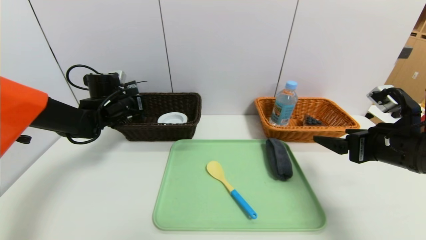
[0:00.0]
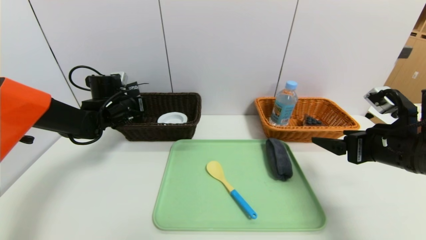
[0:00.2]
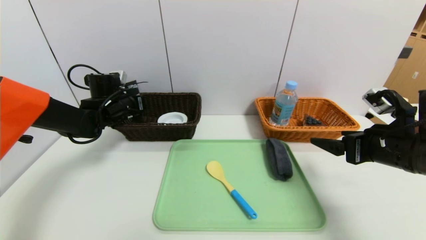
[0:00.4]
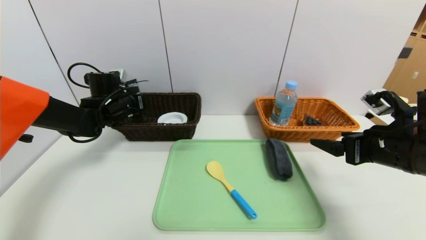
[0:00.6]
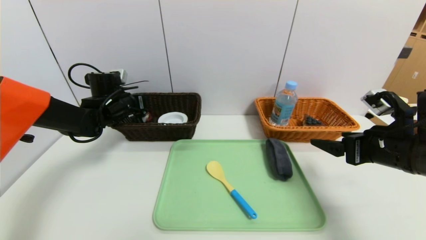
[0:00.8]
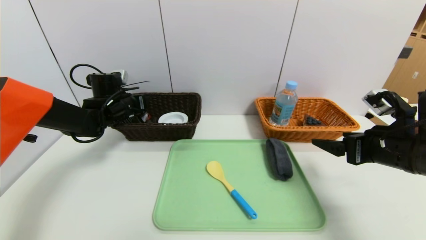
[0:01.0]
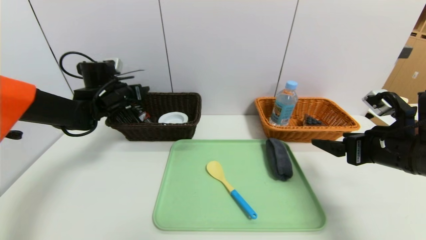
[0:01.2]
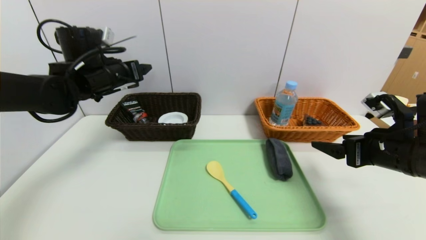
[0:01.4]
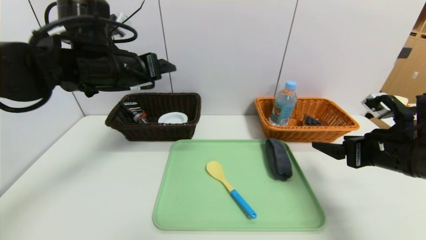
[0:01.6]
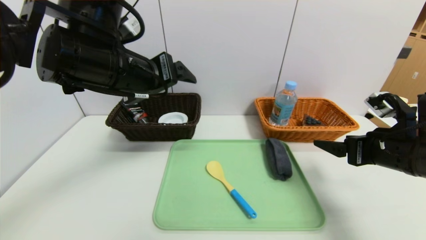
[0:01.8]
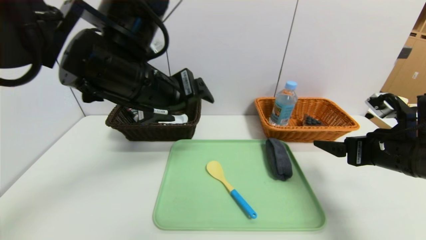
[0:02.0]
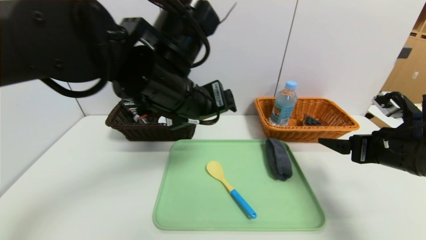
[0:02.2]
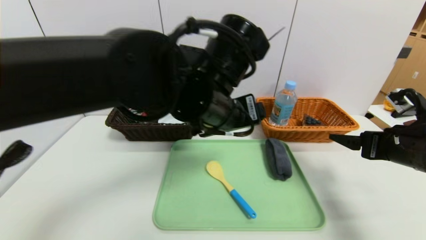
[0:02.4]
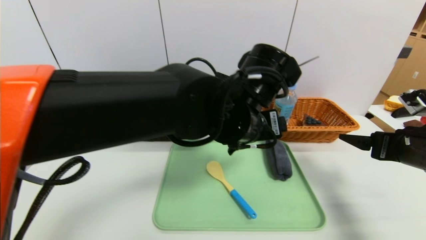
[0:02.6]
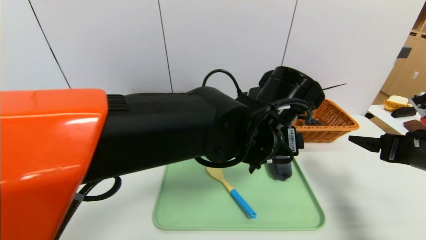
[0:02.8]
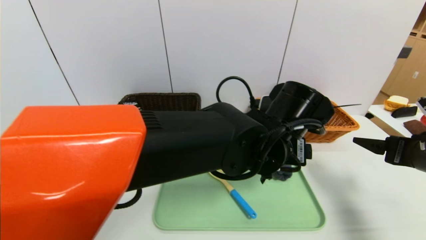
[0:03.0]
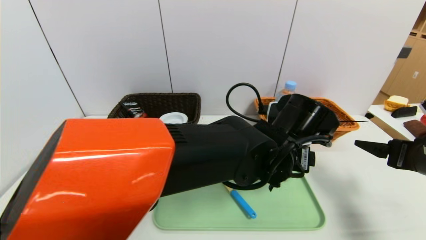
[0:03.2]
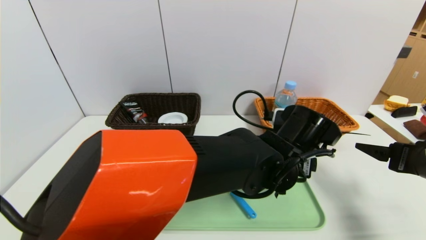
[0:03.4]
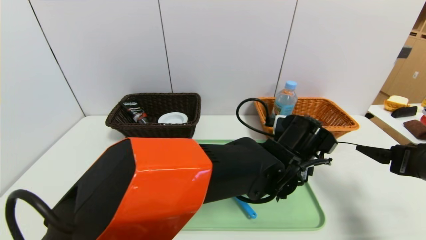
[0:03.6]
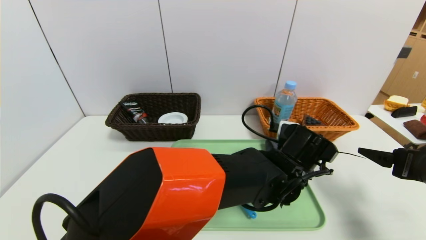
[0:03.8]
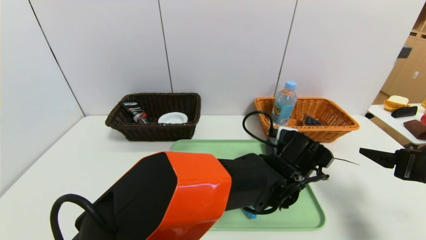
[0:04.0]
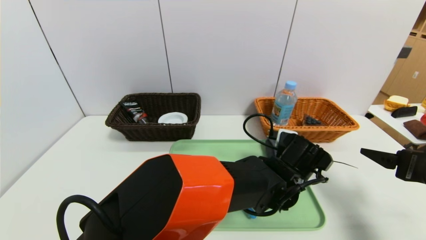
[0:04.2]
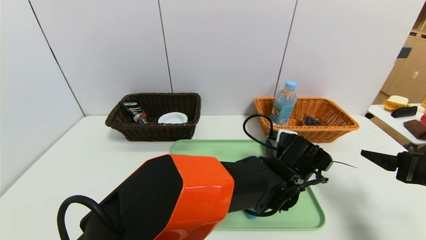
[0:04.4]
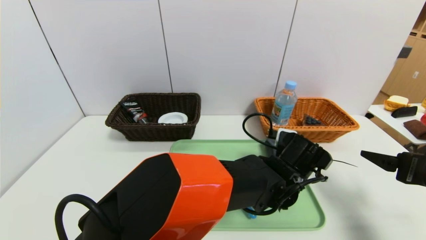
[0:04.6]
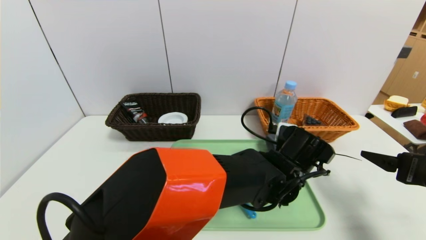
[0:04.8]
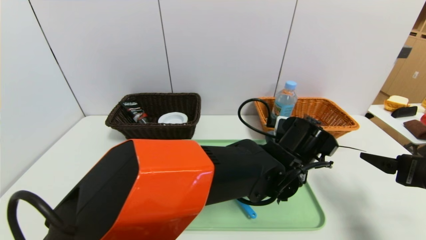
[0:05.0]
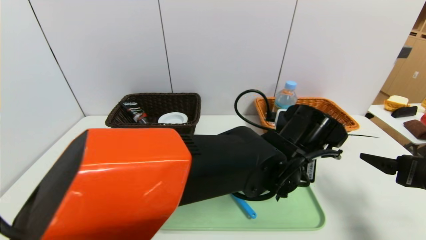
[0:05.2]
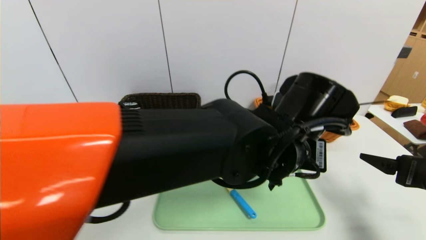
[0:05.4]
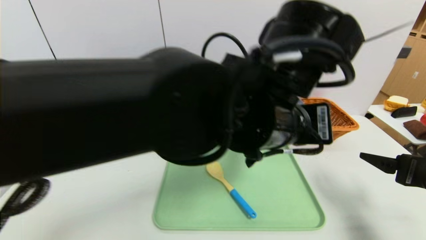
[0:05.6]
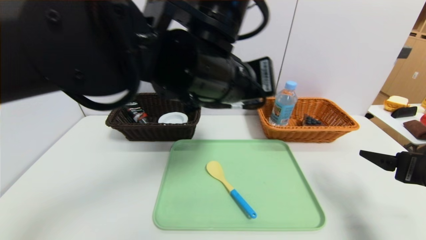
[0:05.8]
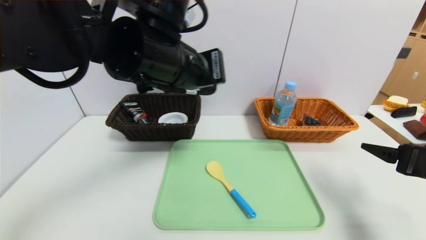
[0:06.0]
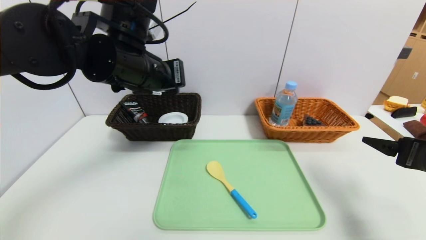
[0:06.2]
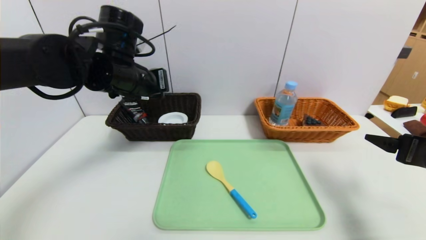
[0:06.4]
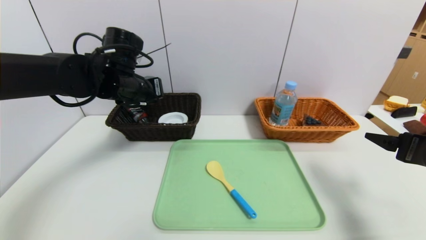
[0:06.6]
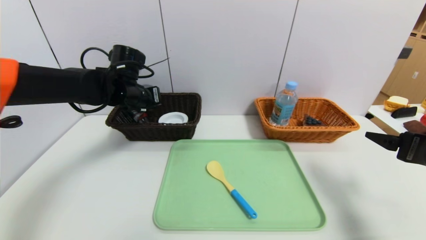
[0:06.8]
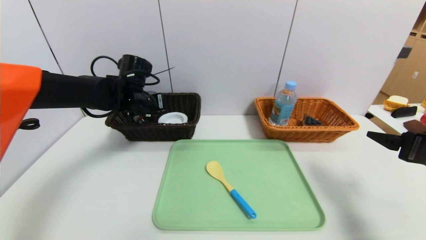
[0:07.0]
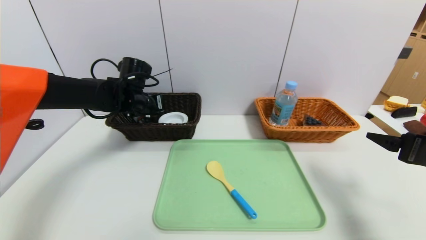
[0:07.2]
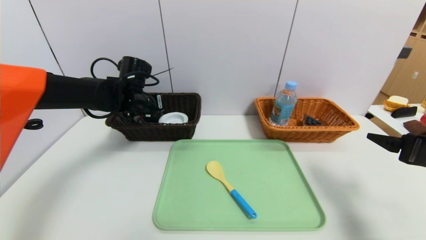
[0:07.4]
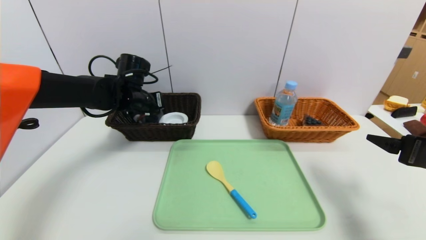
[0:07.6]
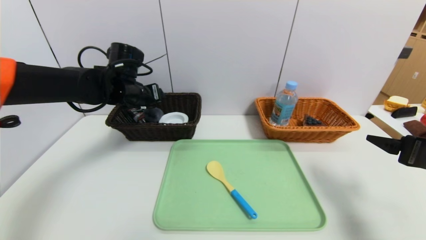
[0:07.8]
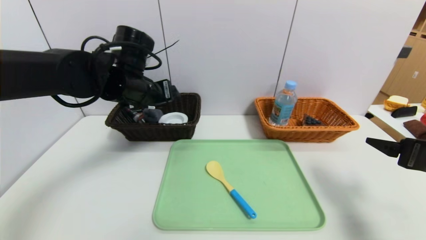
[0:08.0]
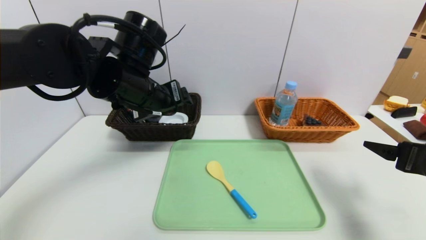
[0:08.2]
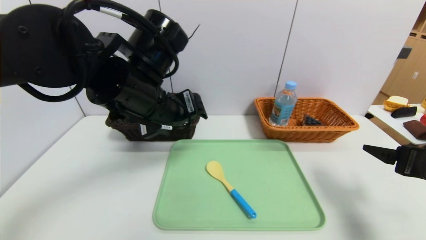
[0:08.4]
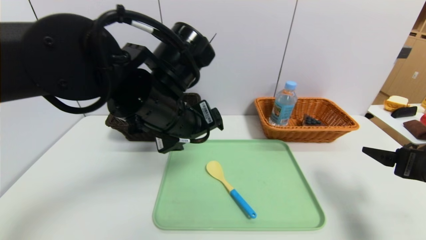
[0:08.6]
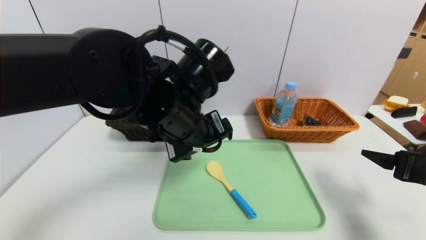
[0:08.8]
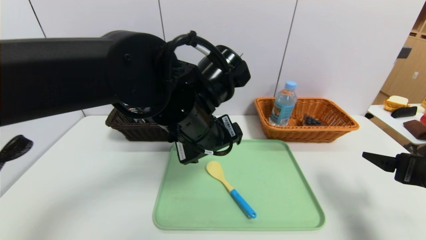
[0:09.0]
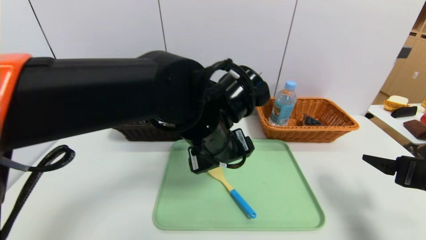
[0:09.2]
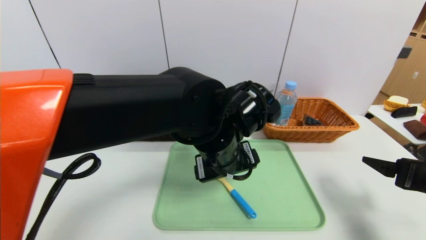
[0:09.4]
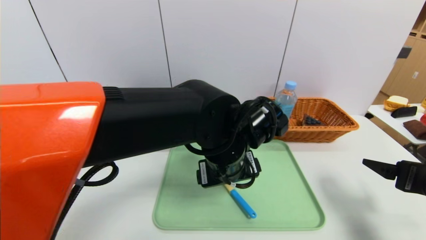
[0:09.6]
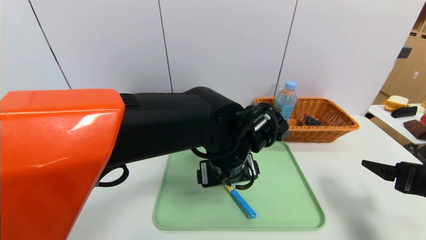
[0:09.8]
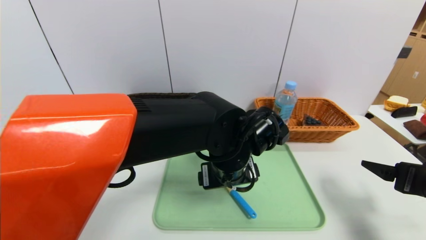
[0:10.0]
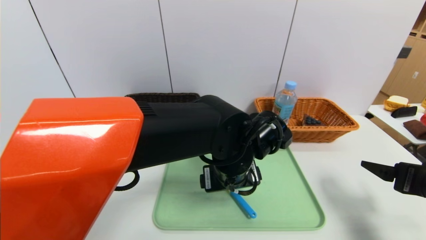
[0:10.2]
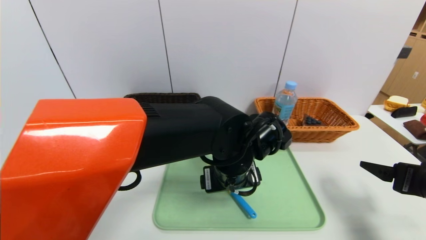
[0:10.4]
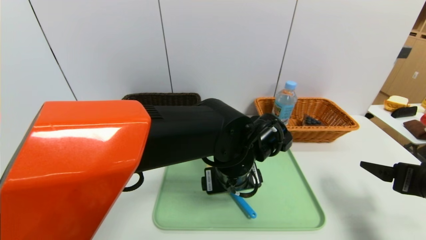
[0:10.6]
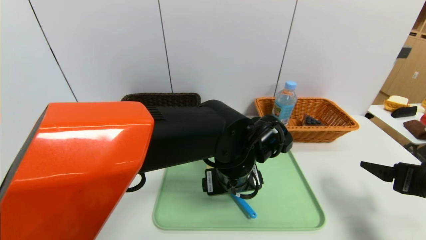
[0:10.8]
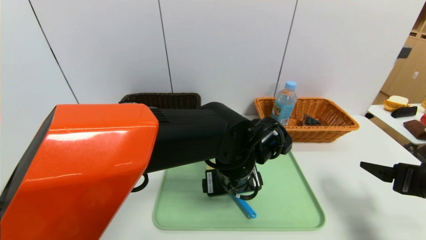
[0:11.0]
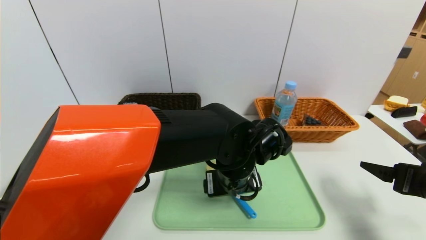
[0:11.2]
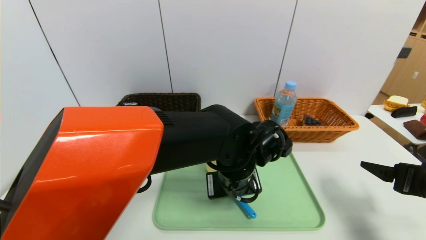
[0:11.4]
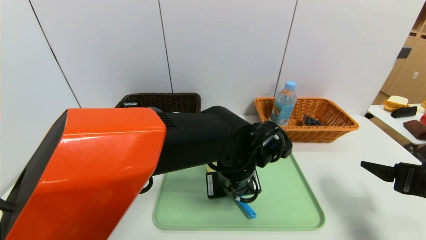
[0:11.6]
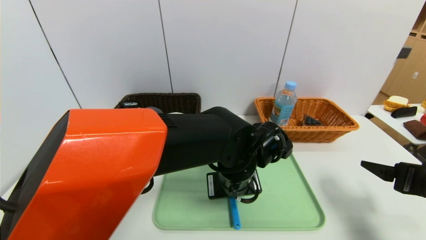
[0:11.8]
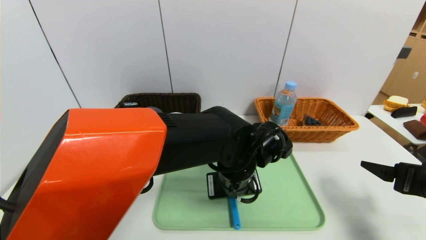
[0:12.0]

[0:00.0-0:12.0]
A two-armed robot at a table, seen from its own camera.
Task of the whole recording: place the food in the right basket with the right gripper, and place the non food items in the left basket with the left gripper.
Step, 0:01.6 to 0:08.2: Grasp the grey towel and put it in the left basket.
0:00.0 to 0:01.6: The left gripper moves upward, backward and to the right, roughly 20 cm, and opens its fingers.
0:01.6 to 0:03.0: The right gripper moves to the right, some 5 cm. The left gripper goes some 25 cm to the right.
0:03.0 to 0:04.4: The left gripper travels downward and to the right by approximately 10 cm, and closes its fingers.
0:04.4 to 0:06.0: The left gripper goes about 30 cm upward and to the left, and closes up.
0:06.0 to 0:07.6: The left gripper is displaced forward, downward and to the left by approximately 25 cm, and opens its fingers.
0:07.6 to 0:09.0: The left gripper heads backward and to the right, covering approximately 25 cm.
0:09.0 to 0:10.4: The left gripper is displaced downward and to the right by approximately 10 cm.
0:10.4 to 0:12.0: The left gripper closes its fingers.

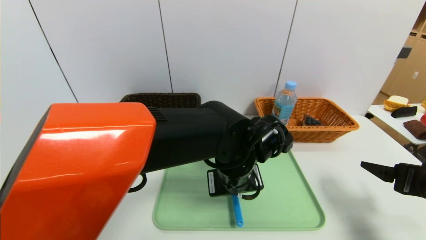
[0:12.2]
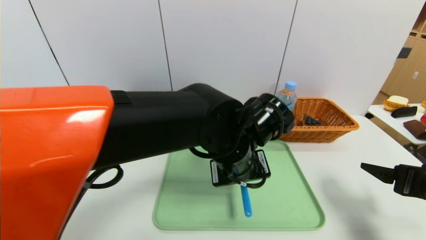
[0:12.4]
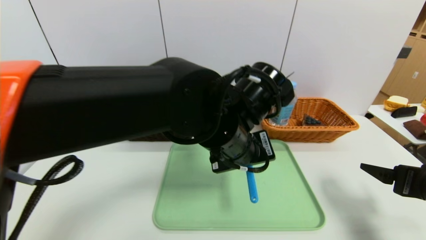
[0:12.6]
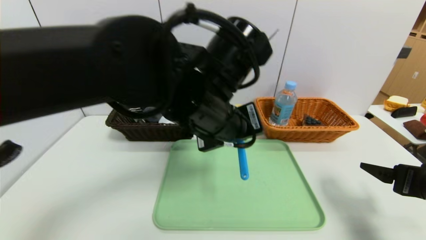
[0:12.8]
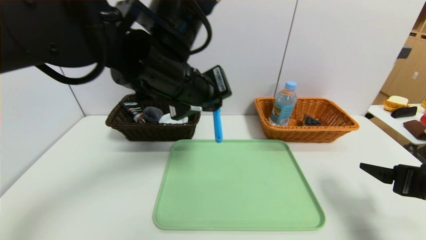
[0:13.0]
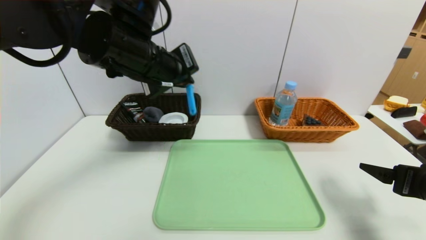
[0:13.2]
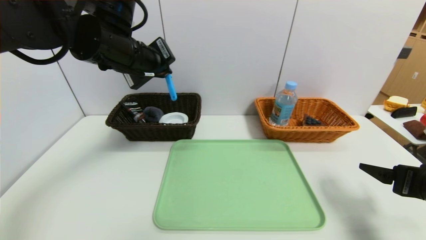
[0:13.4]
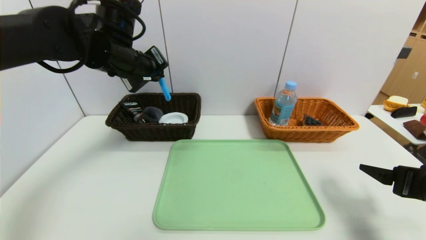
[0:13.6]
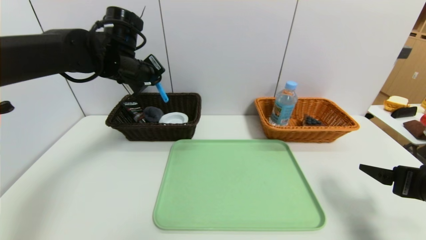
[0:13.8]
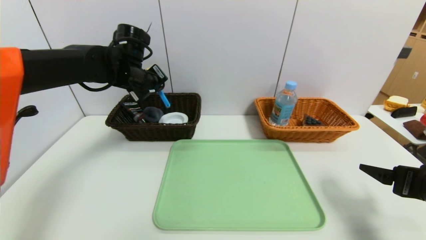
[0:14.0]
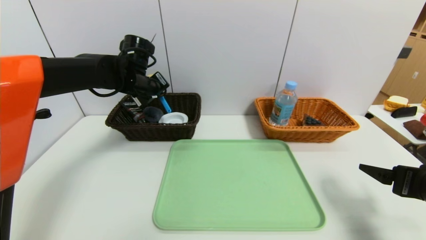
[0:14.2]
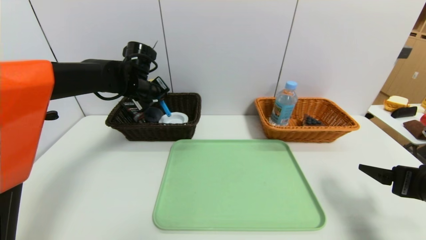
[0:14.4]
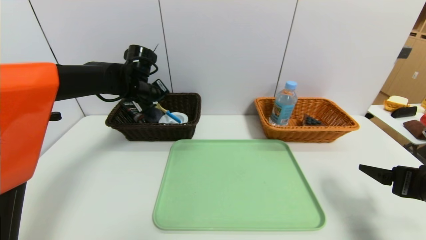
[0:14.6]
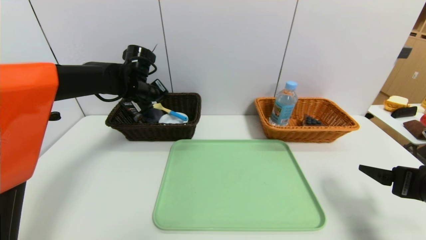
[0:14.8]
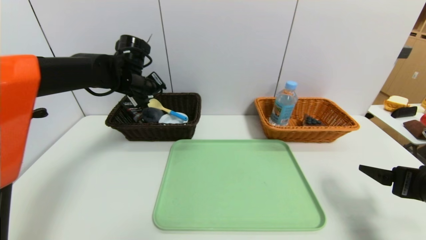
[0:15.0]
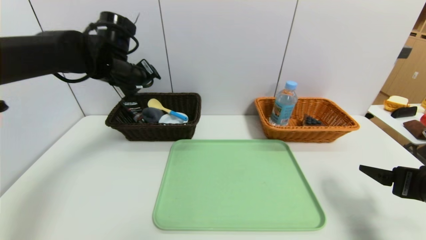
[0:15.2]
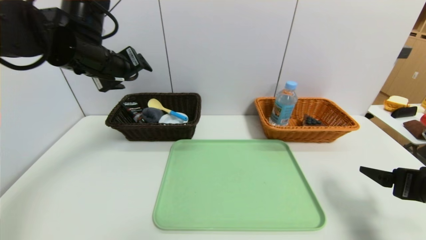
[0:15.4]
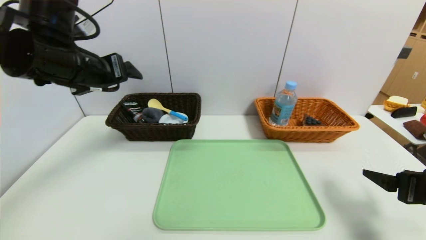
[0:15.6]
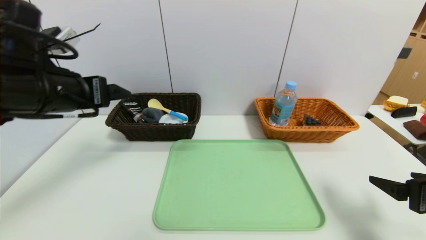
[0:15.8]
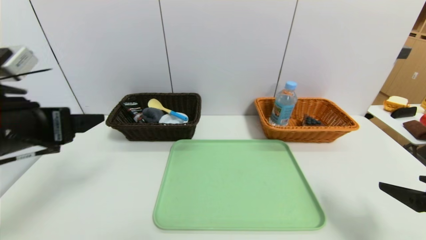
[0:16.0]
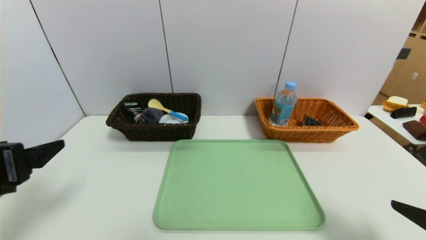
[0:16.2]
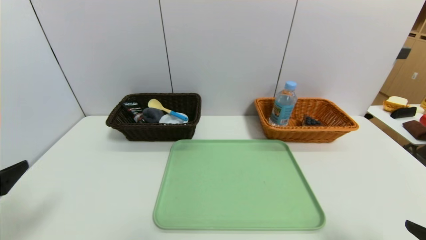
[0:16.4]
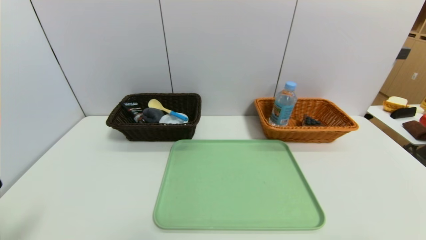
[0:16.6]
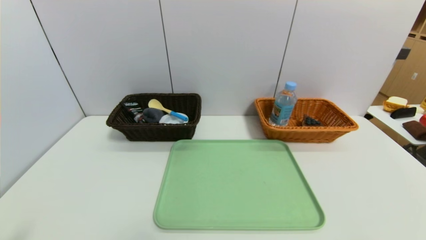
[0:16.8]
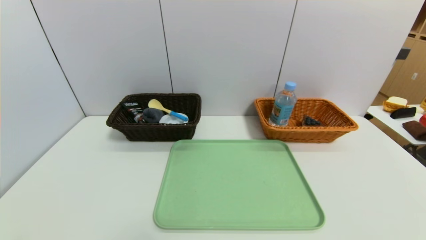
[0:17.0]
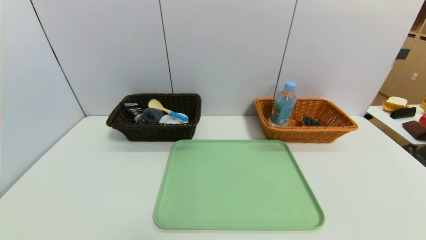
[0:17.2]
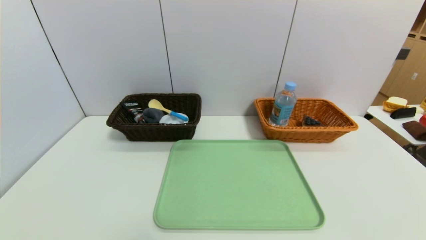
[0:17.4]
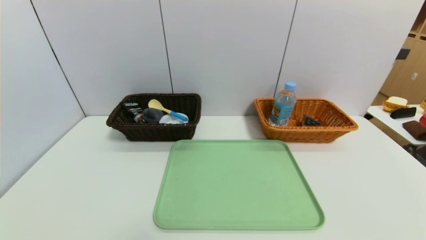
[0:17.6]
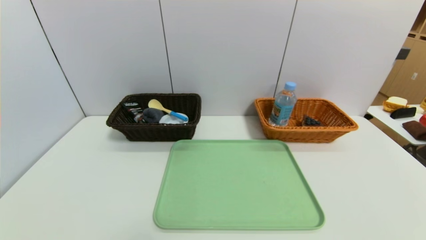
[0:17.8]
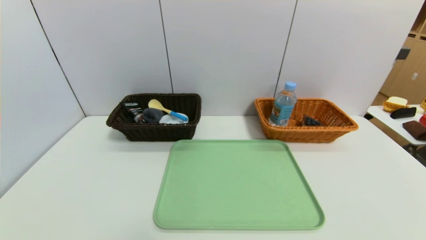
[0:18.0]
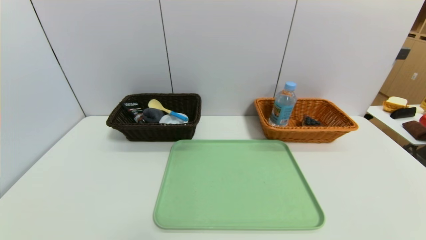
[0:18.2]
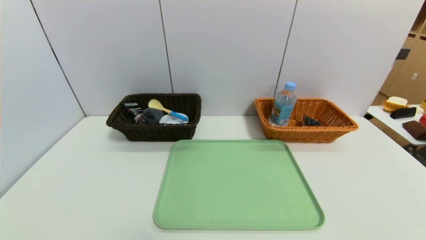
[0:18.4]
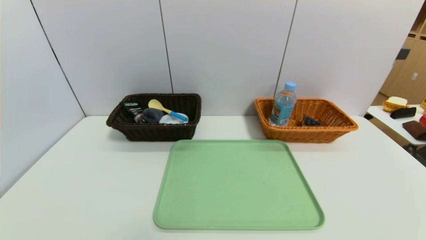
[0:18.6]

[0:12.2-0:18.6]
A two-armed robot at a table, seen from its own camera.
Task of the whole recording: place the food in the right basket with the right gripper, and place the non food items in the left basket with the left gripper.
Step, 0:12.2 to 0:16.2: Grasp the spoon and put it in the left basket.
0:12.2 to 0:13.8: The left gripper travels to the left, forward and upward by some 30 cm.
0:13.8 to 0:15.4: The left gripper goes some 5 cm backward, and opens.
0:15.4 to 0:17.0: The right gripper moves backward, roughly 20 cm, while the left gripper travels backward and downward by about 40 cm.
